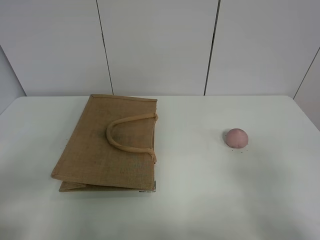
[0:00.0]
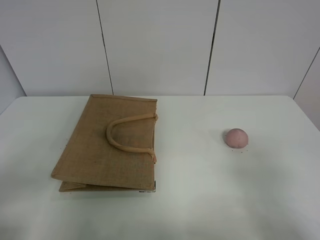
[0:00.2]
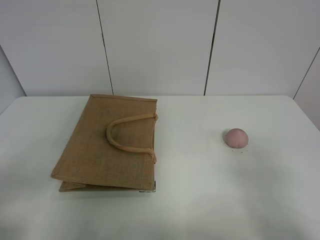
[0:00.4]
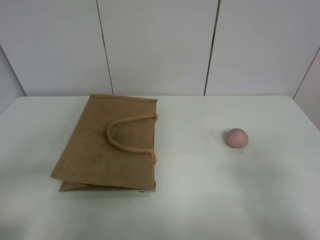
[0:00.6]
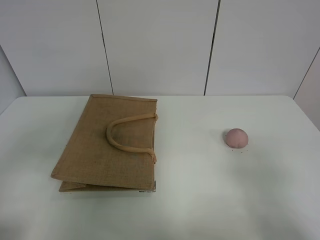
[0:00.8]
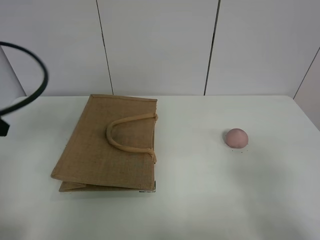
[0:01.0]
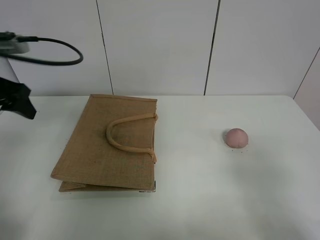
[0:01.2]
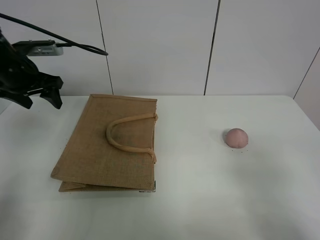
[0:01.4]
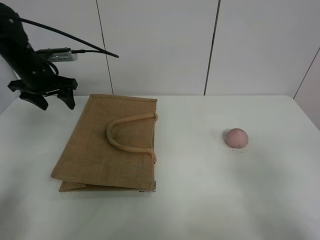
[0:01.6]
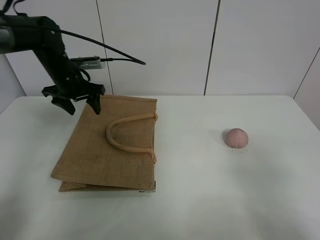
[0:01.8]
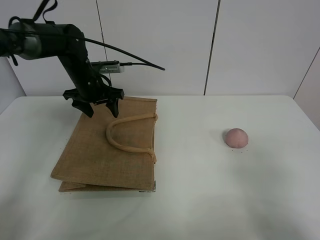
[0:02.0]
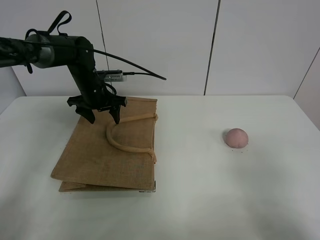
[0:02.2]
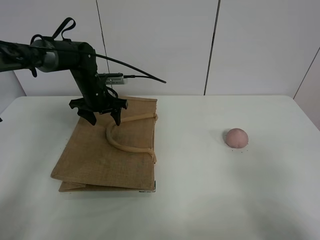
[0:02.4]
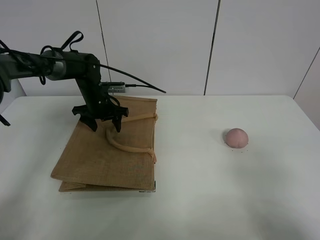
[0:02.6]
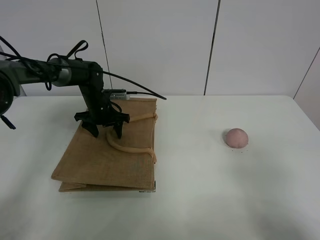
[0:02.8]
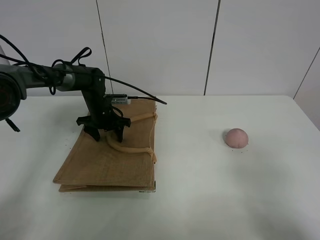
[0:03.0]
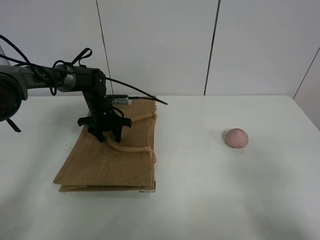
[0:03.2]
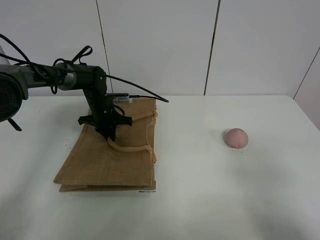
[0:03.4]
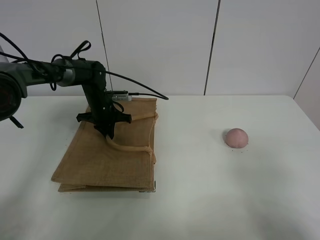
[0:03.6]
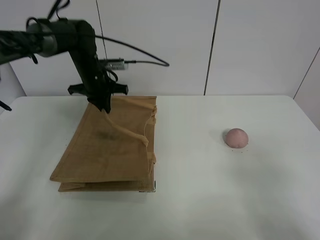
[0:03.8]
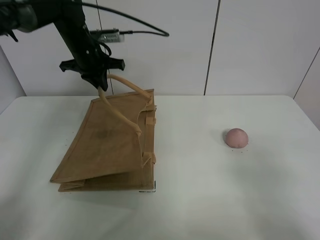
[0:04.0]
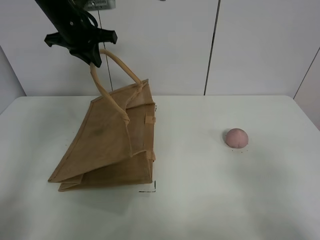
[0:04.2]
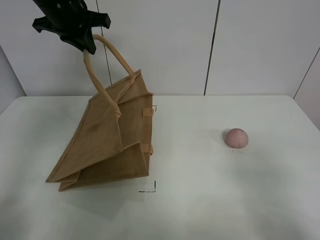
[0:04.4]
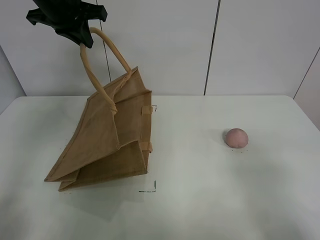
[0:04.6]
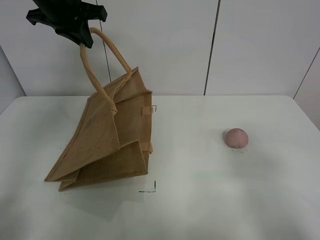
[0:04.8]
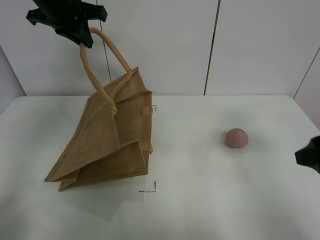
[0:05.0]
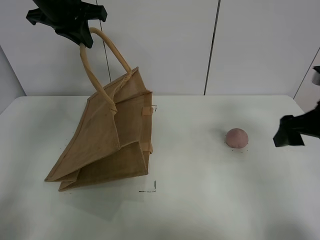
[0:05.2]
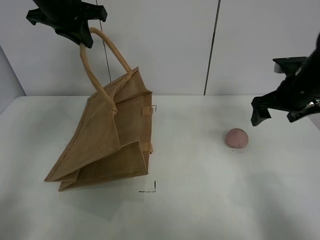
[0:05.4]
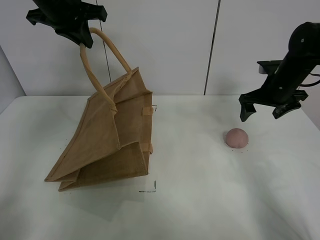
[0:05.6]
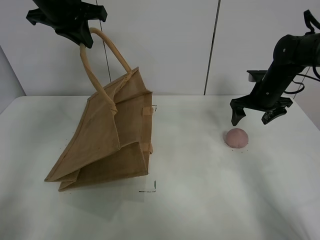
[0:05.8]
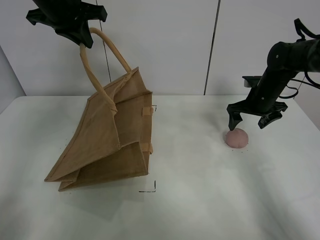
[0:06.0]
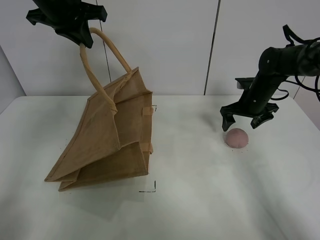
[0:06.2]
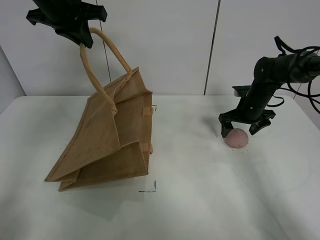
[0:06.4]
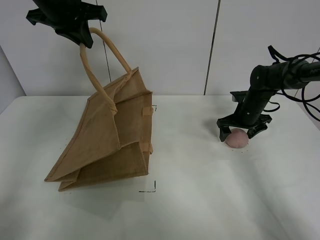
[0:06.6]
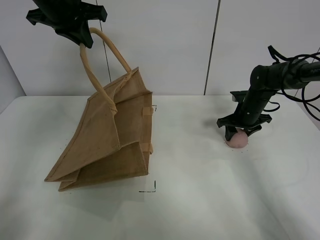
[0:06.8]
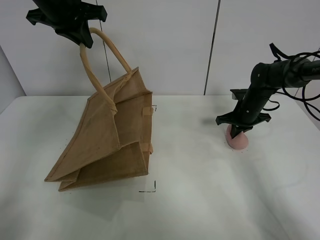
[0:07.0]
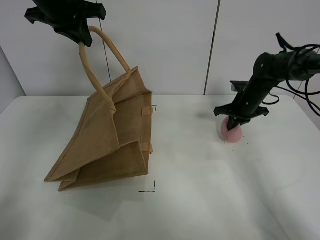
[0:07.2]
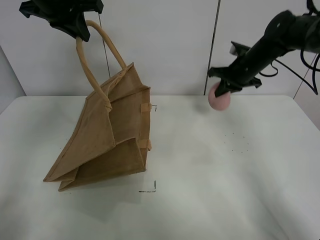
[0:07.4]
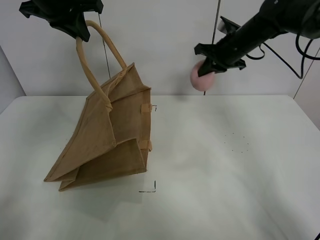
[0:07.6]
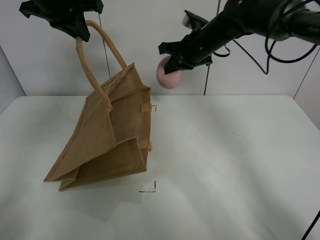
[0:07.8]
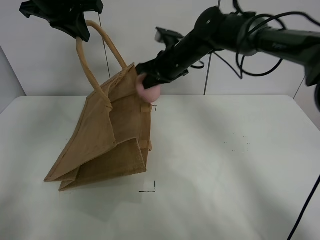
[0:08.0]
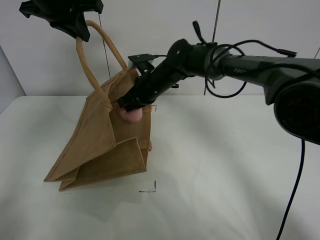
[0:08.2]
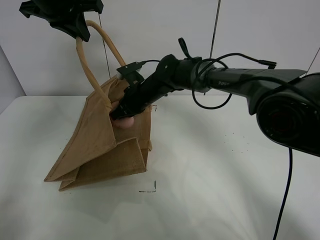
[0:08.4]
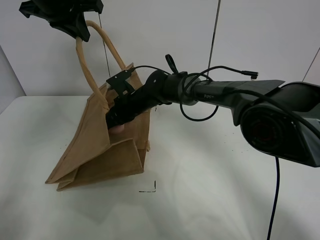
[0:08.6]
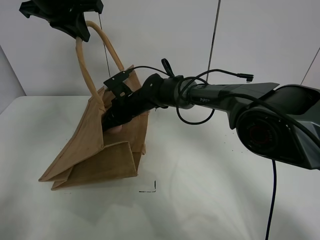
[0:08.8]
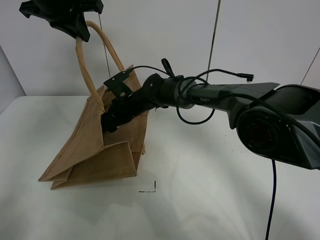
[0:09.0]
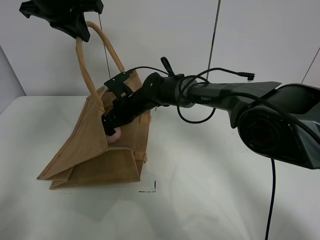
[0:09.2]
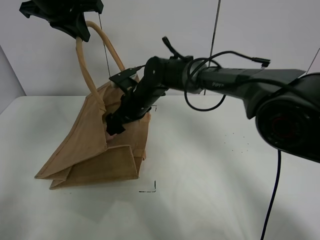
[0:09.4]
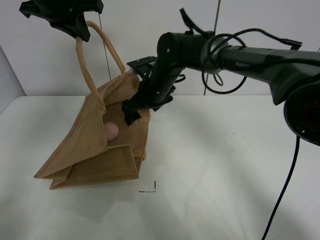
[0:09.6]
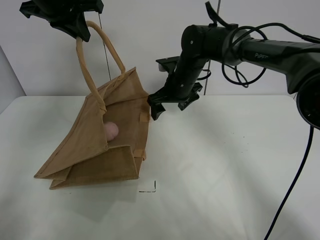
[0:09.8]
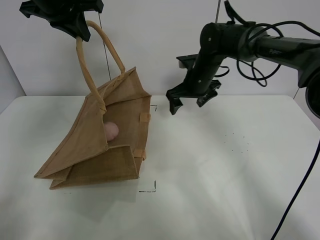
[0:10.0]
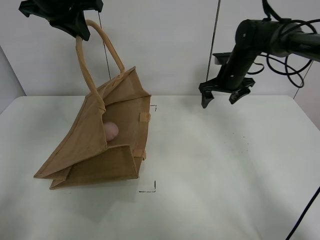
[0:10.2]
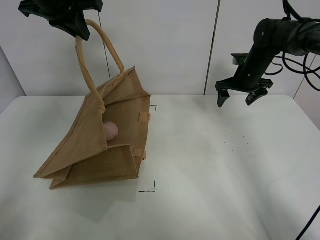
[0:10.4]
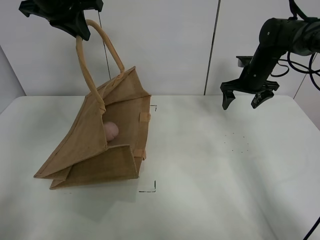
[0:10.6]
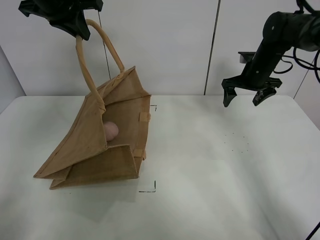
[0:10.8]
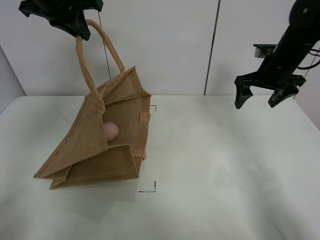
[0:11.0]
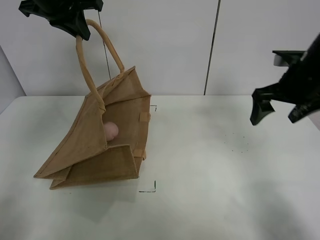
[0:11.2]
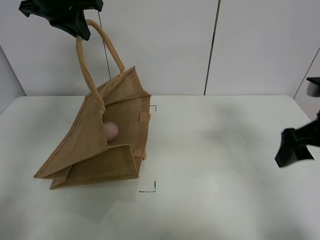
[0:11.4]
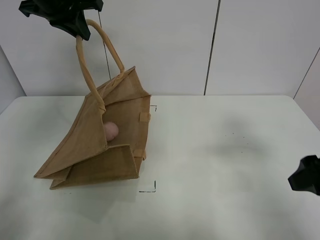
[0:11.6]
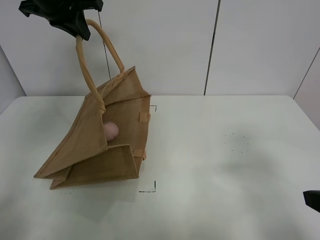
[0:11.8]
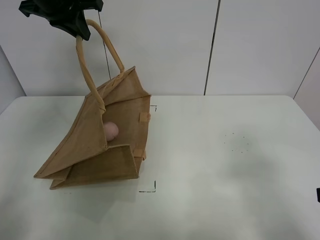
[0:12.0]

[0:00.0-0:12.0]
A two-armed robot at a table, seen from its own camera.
Task of the whole recording: open the brown linen bag and put the peach in the bag.
Step, 0:00.0 to 0:04.6: Lift the handbag with left gripper.
Step, 0:04.8 to 0:06.8: Grasp the peach with right gripper.
Step, 0:07.0 to 0:09.6: Place the peach in the handbag with right gripper.
0:00.0 to 0:01.6: The left gripper goes some 40 cm forward.
0:01.6 to 0:03.0: The left gripper moves downward and to the right, about 20 cm.
0:03.0 to 0:04.4: The left gripper travels upward by about 30 cm, and closes up.
0:04.4 to 0:06.0: The right gripper moves forward, approximately 40 cm.
0:06.0 to 0:07.6: The right gripper travels upward and to the left by approximately 15 cm, and closes its fingers.
0:07.6 to 0:09.0: The right gripper moves to the left and downward, roughly 25 cm, and opens.
0:09.0 to 0:10.4: The right gripper is displaced to the right by some 30 cm.
0:10.4 to 0:12.0: The right gripper is displaced backward by roughly 40 cm.

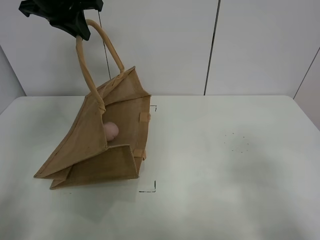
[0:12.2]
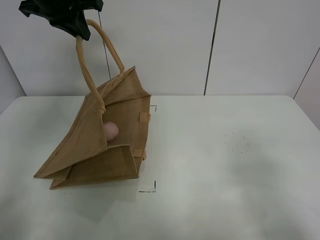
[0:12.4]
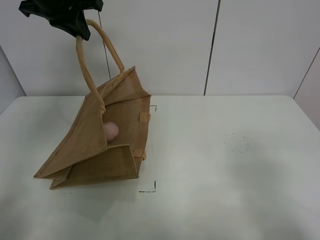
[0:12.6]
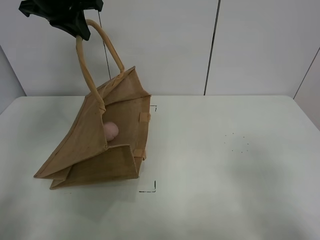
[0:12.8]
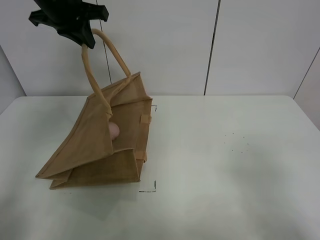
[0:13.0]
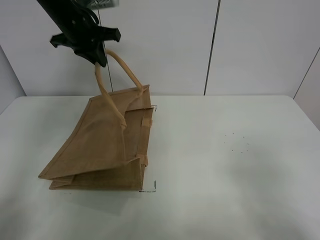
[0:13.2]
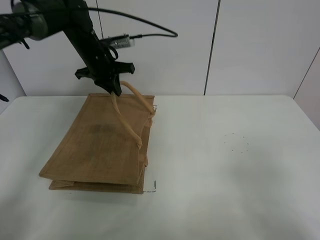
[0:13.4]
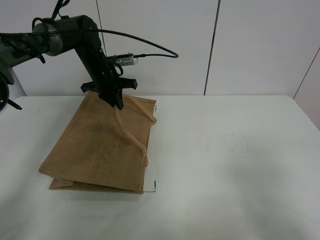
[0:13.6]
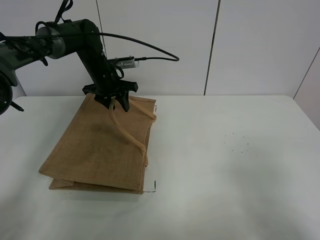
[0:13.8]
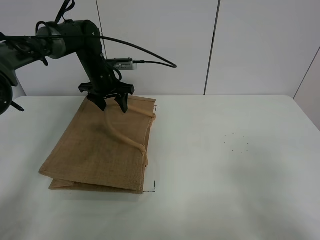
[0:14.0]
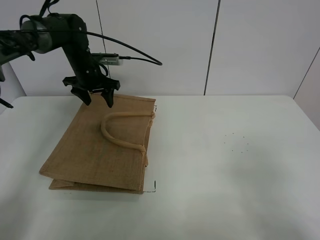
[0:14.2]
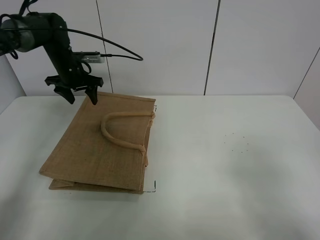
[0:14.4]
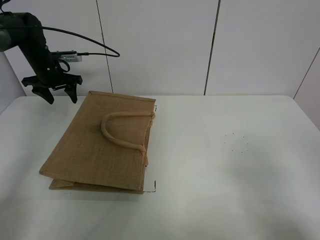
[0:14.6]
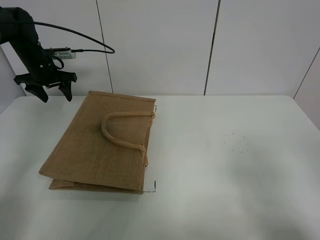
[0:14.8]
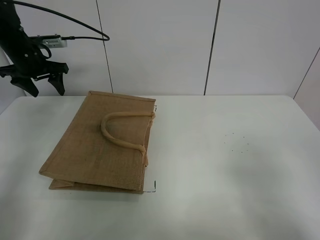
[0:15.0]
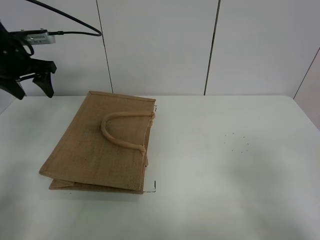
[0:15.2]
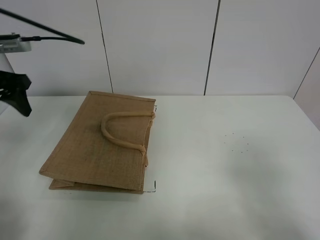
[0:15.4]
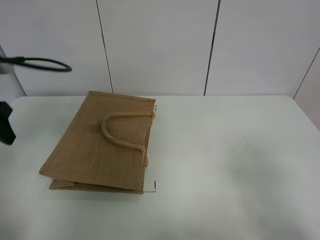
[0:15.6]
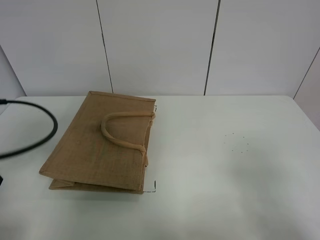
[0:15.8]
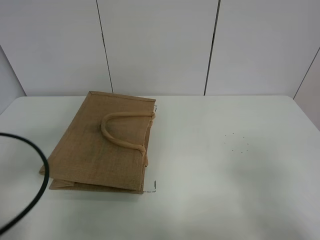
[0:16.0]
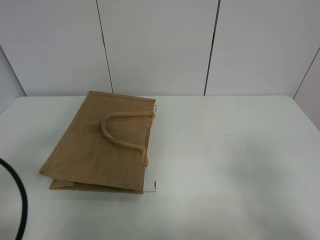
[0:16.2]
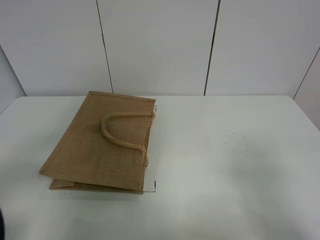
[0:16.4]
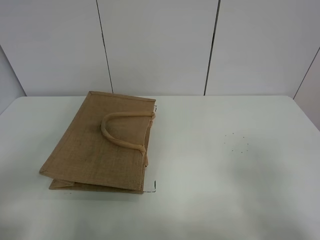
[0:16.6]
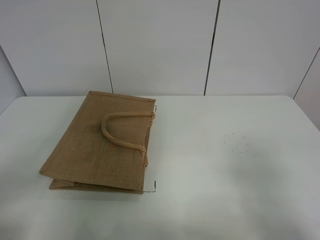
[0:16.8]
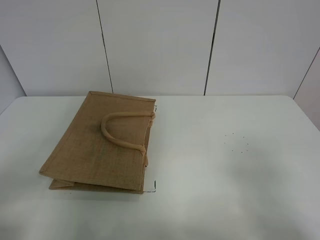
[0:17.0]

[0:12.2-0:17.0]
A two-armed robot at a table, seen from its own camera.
Task of the whole recording: open the brown linen bag and put the peach in the bag.
Step, 0:12.2 to 0:14.4: Put down the handbag with left grippe.
0:12.2 to 0:13.8: The left gripper travels downward and forward by some 25 cm, and opens its fingers.
0:13.8 to 0:15.4: The left gripper travels backward, to the left and upward by approximately 30 cm.
0:15.4 to 0:17.0: The left gripper heads backward, covering approximately 25 cm.
